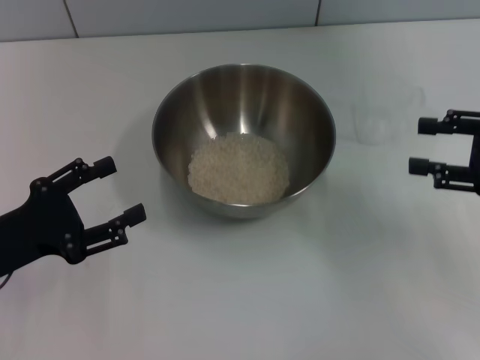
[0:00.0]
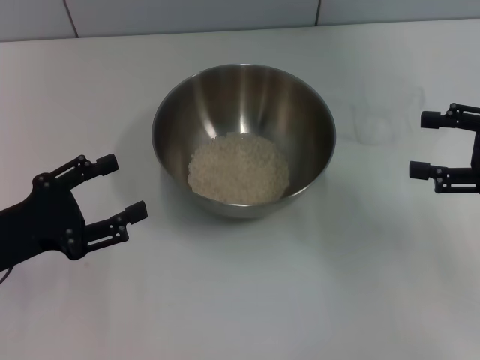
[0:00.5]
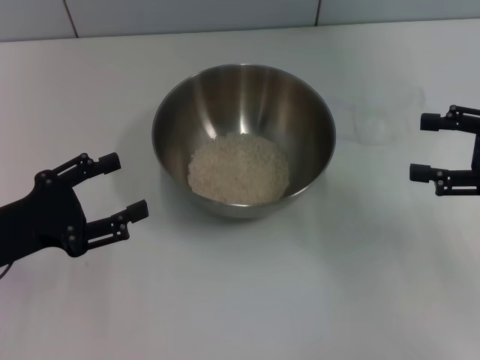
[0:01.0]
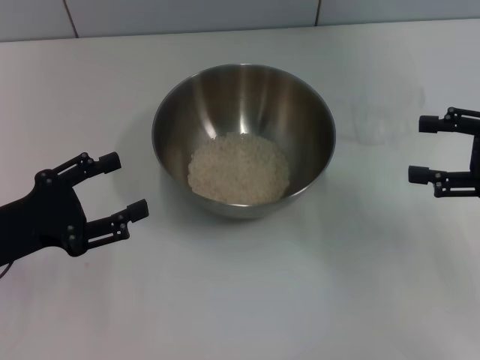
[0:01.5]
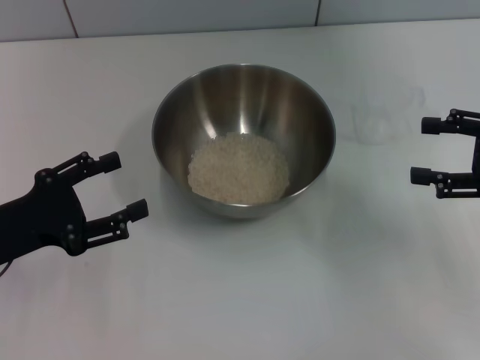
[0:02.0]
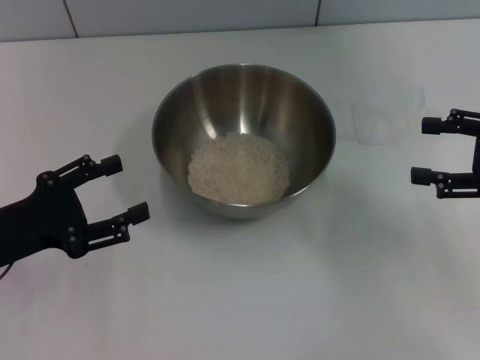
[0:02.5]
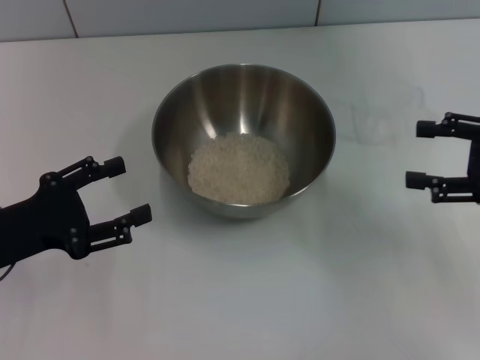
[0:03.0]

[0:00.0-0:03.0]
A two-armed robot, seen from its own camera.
Task of the whole recording: Place the bowl in the middle of the table with one hand and pour the rice from the grain cup into it with the other hand.
0:00.0 to 0:01.5: The grippers make only small movements.
0:01.5 to 0:03.0: Both grippers stay put.
